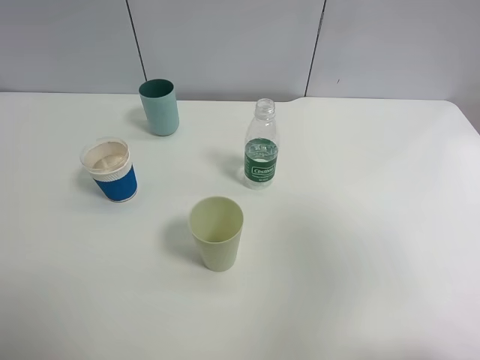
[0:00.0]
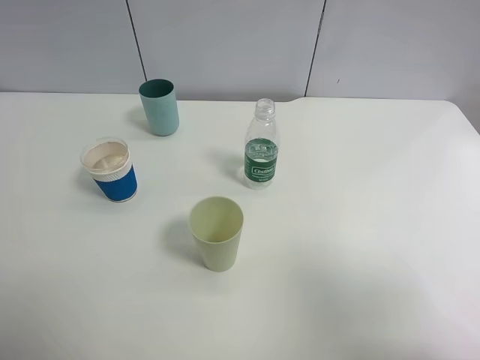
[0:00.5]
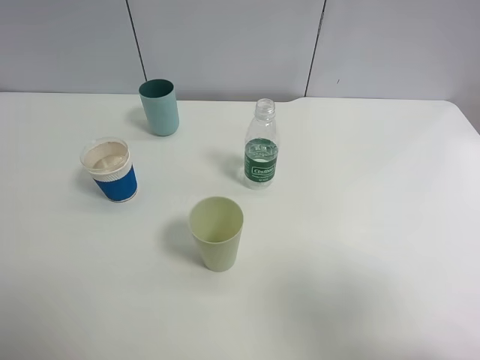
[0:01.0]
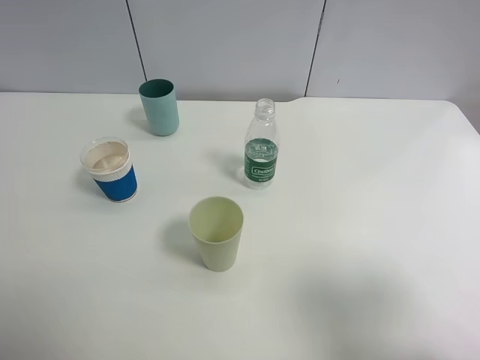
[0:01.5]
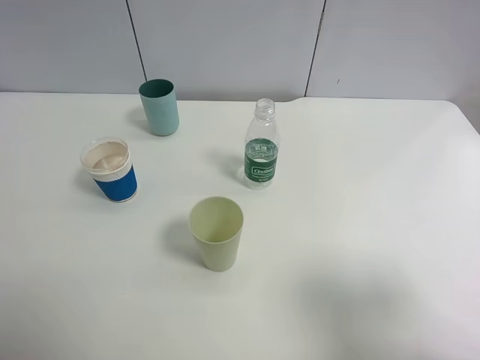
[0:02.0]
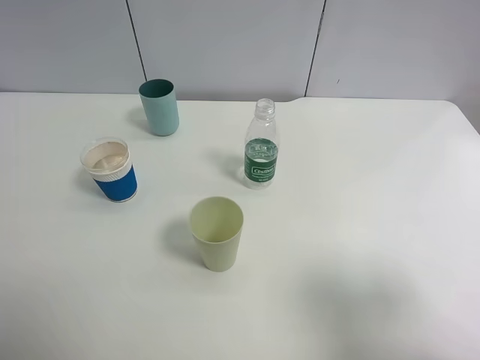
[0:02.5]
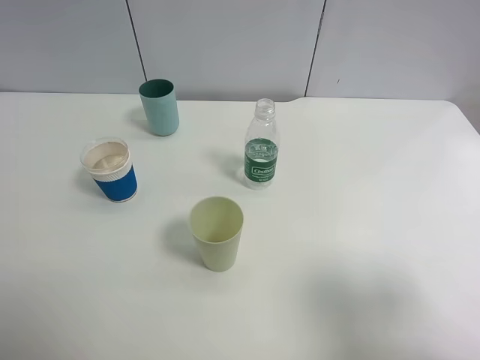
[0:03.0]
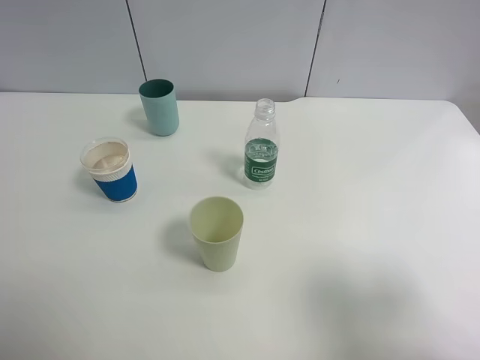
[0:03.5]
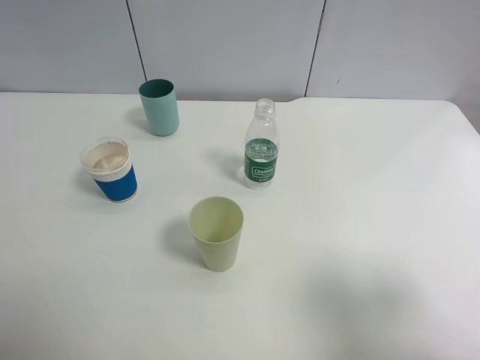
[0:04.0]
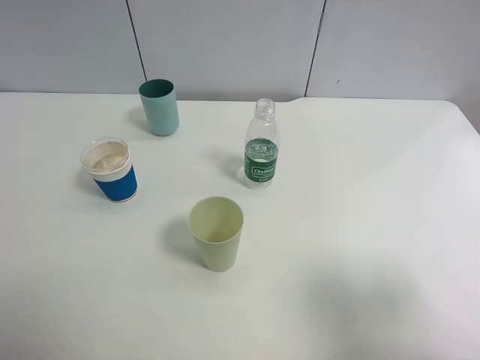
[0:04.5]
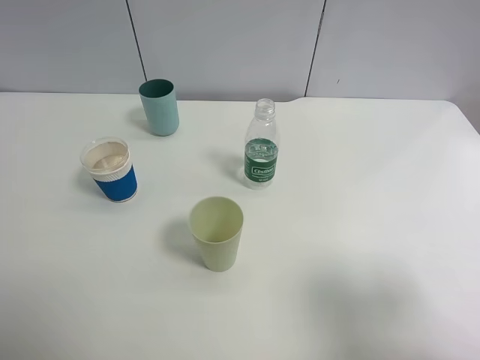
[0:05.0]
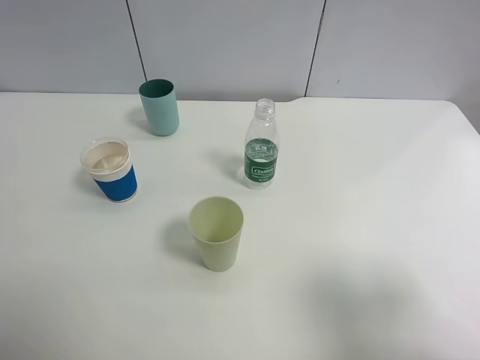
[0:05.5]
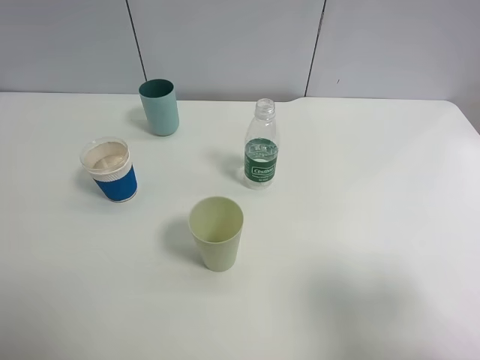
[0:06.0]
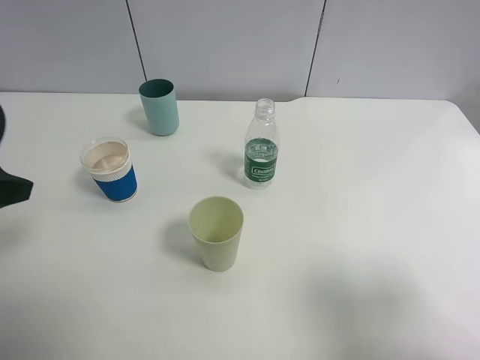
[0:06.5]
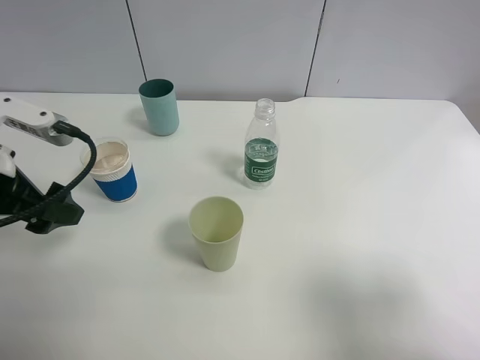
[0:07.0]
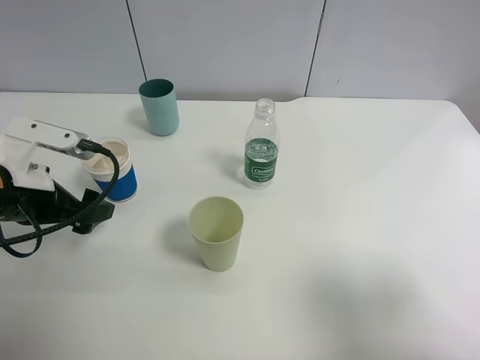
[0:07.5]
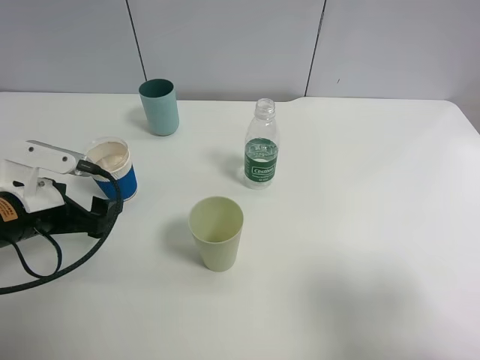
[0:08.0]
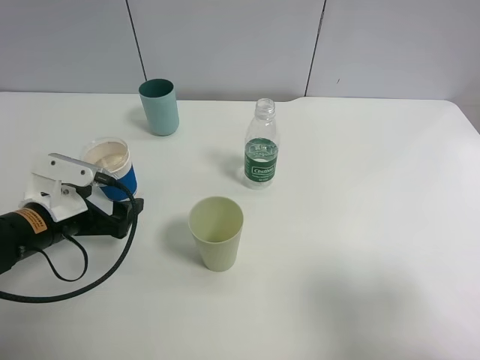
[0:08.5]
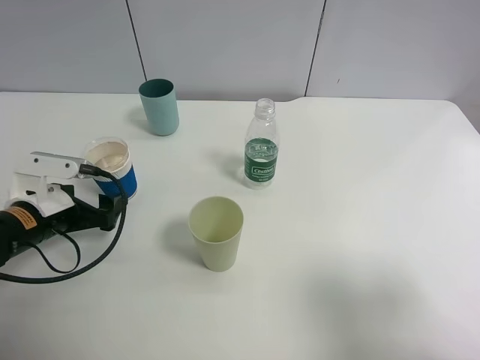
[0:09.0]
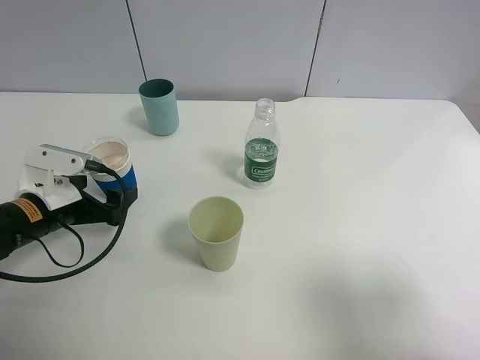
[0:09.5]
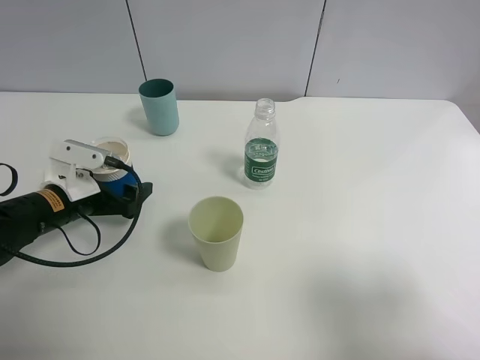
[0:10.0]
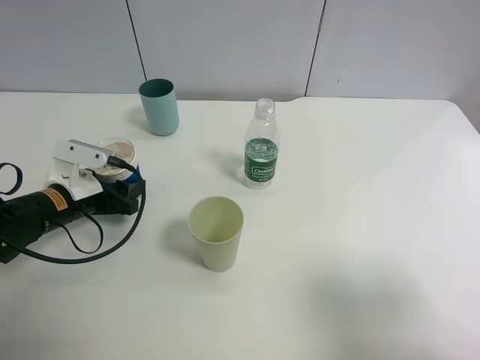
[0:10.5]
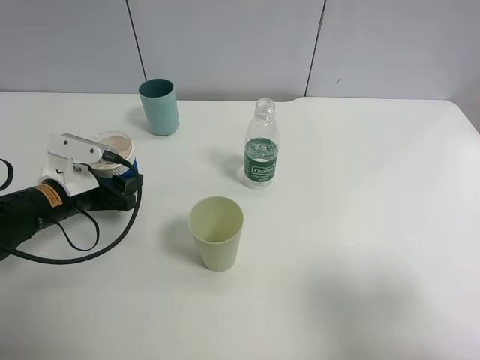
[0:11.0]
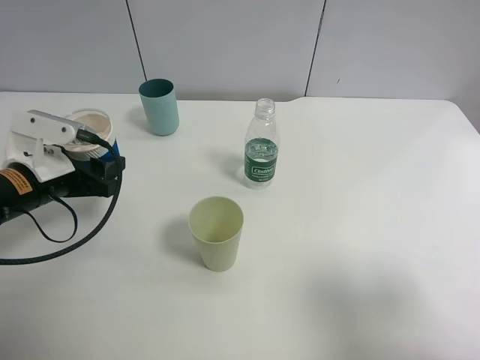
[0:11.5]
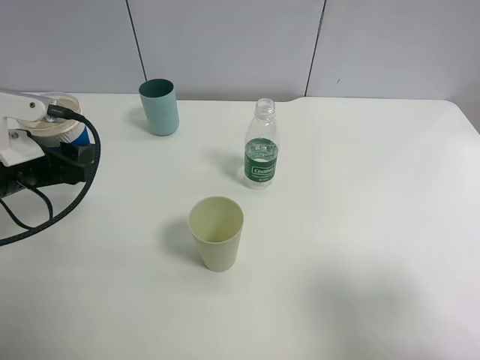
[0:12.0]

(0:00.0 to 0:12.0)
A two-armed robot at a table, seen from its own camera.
Task of the whole recording: use a clamp to hold the bottle of the drink, pour the beverage into a random cup, then clamp the cup containing the drink and pour the drink into another random cup.
Step, 0:00.0 - 0:11.0: Pick up the paper cup with left gripper.
0:00.0 - 0:02.0: The right gripper shifts approximately 10 cm downward.
0:02.0 - 0:04.0: Both grippers stay put.
0:06.0 - 0:08.0: The left gripper is displaced downward and forward by roughly 20 cm.
0:08.0 - 0:10.0: The left gripper is displaced forward by roughly 5 cm.
0:10.0 - 0:12.0: The left gripper goes approximately 10 cm upward, and closes up.

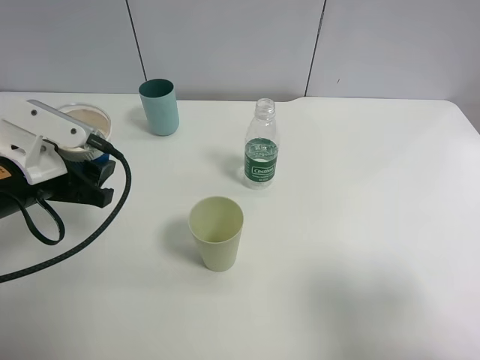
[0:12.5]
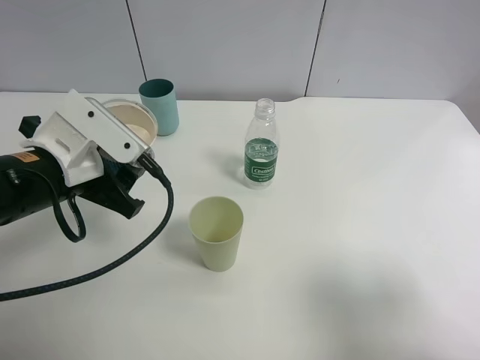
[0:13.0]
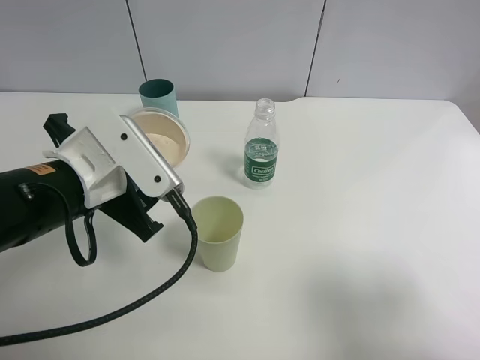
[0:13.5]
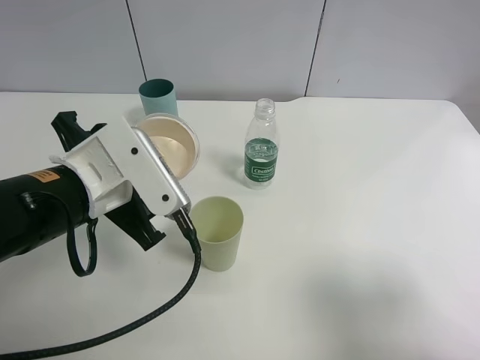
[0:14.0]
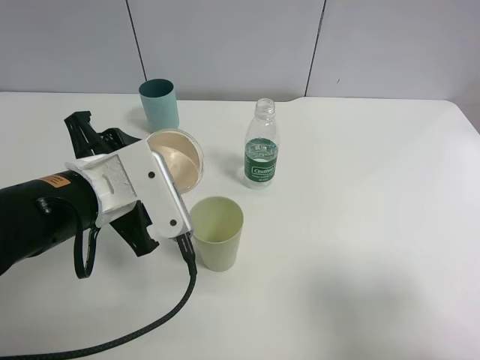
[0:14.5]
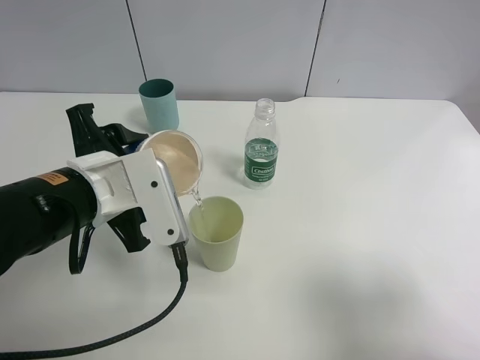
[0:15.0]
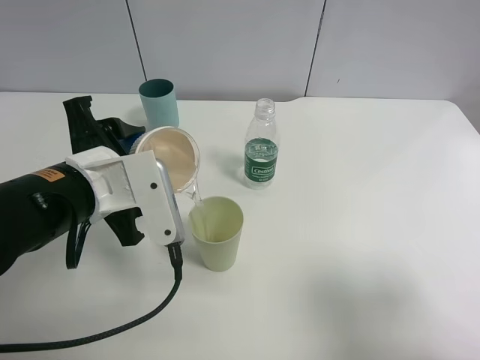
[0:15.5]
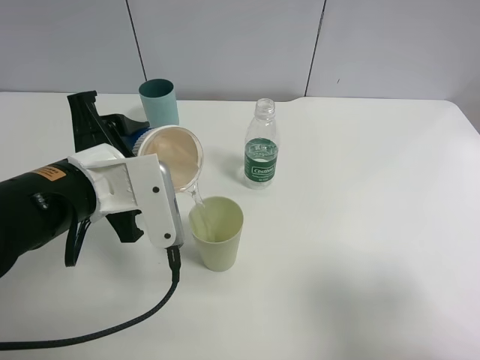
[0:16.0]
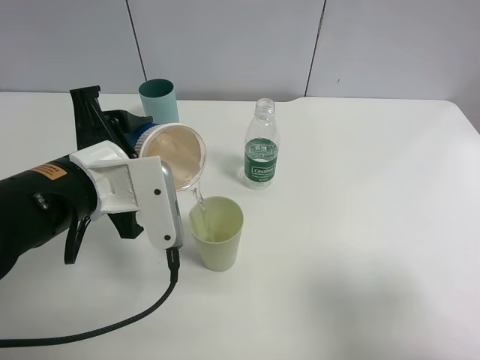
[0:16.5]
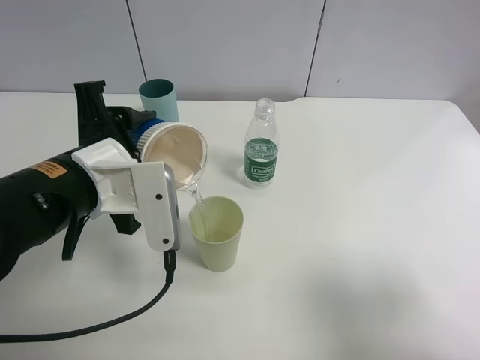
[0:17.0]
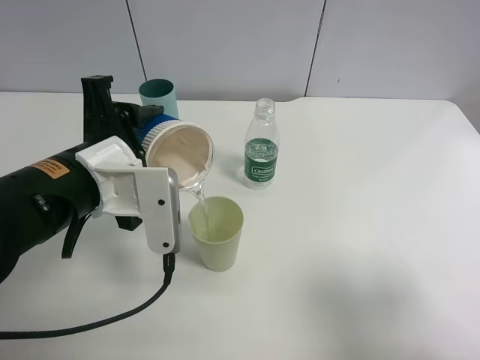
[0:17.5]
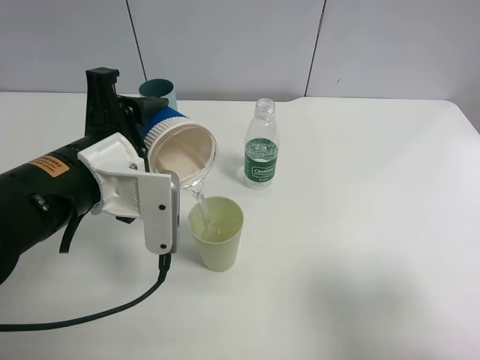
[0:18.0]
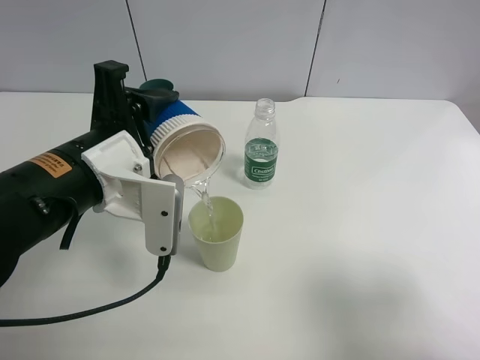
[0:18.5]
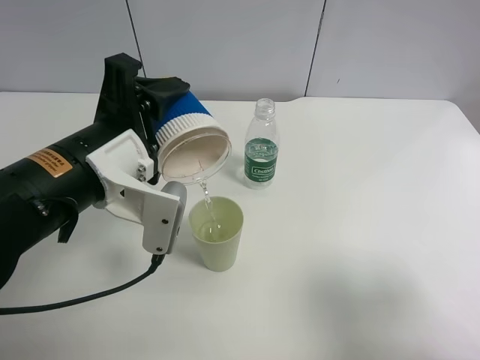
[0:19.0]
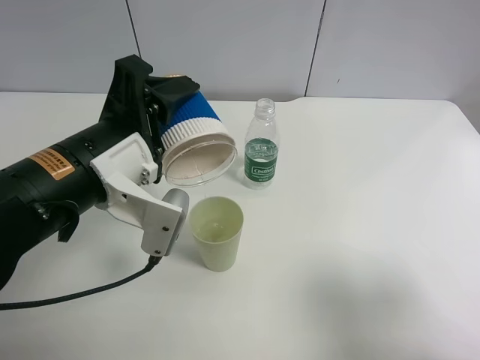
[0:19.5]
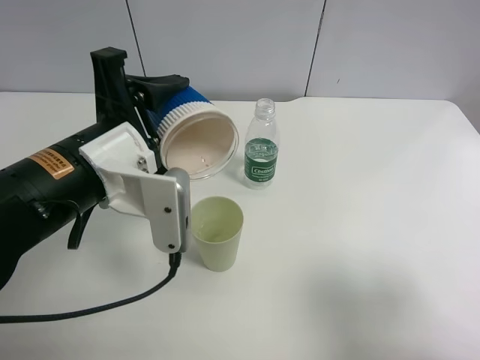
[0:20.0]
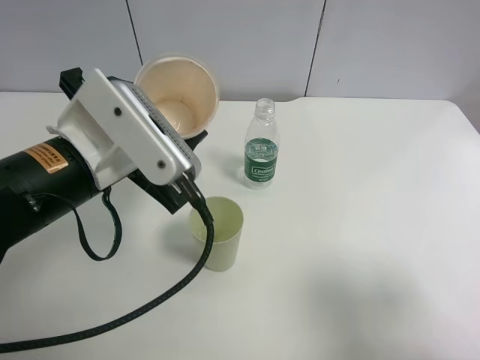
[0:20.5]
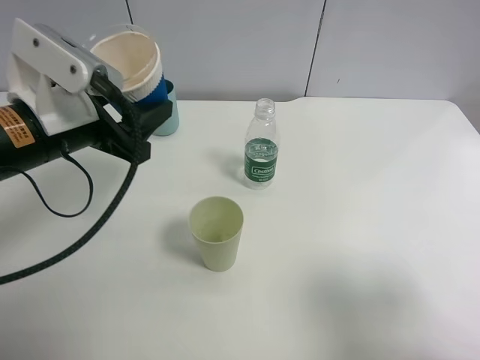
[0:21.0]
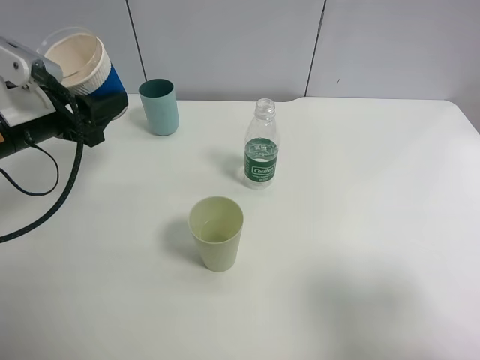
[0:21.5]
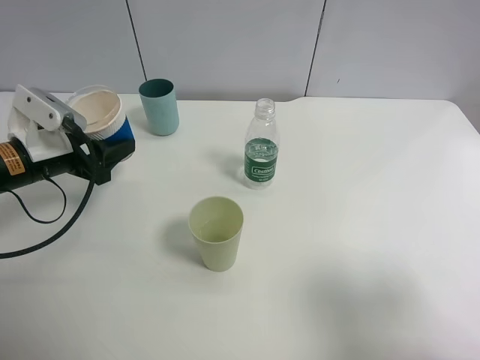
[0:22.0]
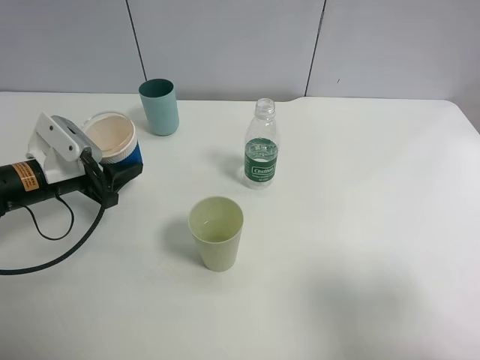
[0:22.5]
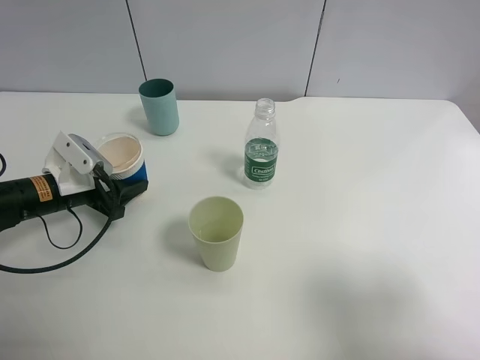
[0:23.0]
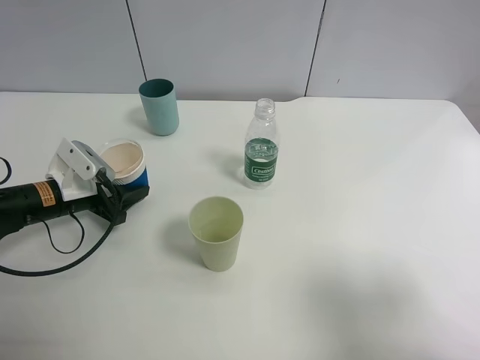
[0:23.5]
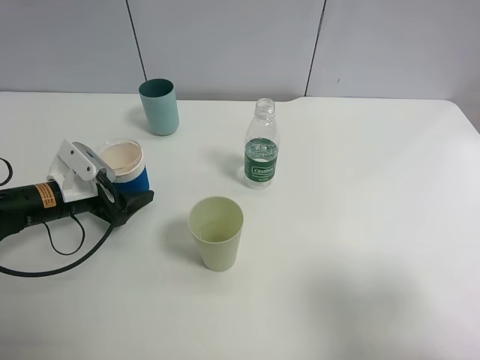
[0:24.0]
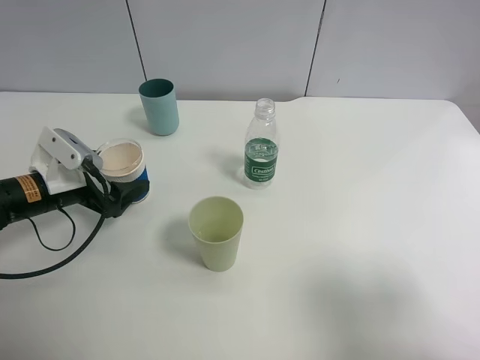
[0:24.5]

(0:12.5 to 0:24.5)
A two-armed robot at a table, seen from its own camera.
Task of the whole recording: use a clamp to hold the bottle of the drink, pour the beverage into a random cup, then clamp the cup containing the drink and pour the drink into another random cup.
Step, 0:12.5 - 0:20.0: Pour water into the green plastic cup with left gripper.
Step, 0:20.5 - 0:24.0: Place the paper cup on the table with left gripper.
0:12.5 - 0:14.5: The left gripper moves to the right, approximately 10 cm.
0:20.5 - 0:22.5: The left gripper travels to the left, downward and forward by about 20 cm.
0:22.5 - 0:24.5: The left gripper opens up.

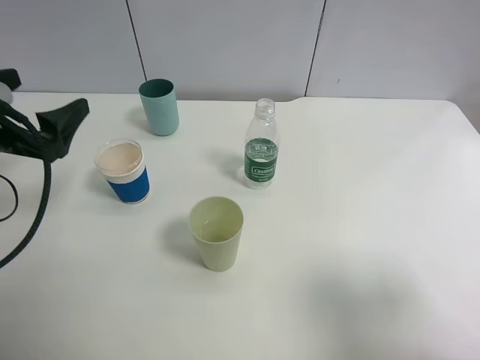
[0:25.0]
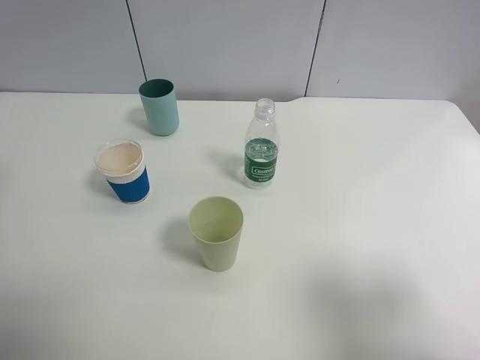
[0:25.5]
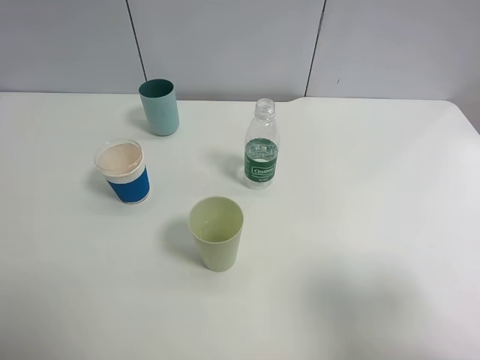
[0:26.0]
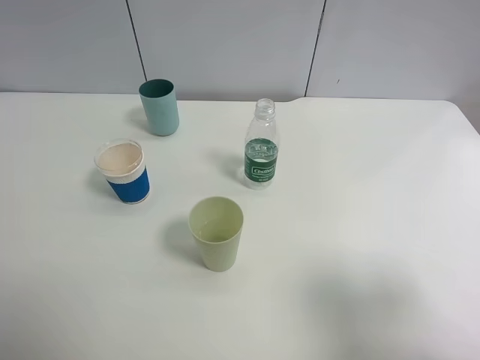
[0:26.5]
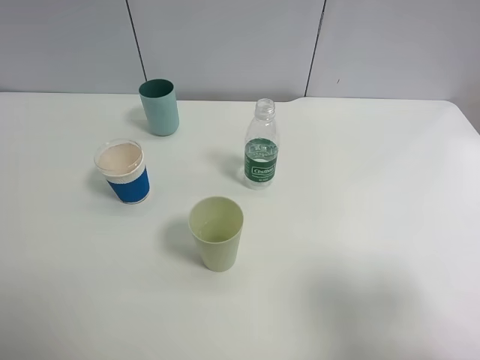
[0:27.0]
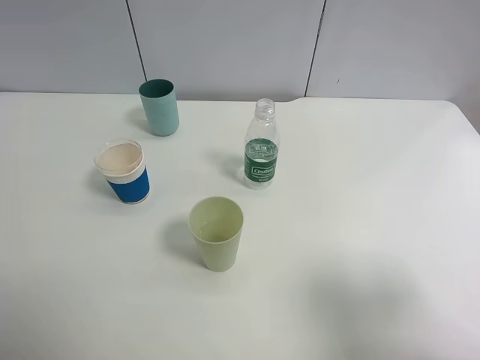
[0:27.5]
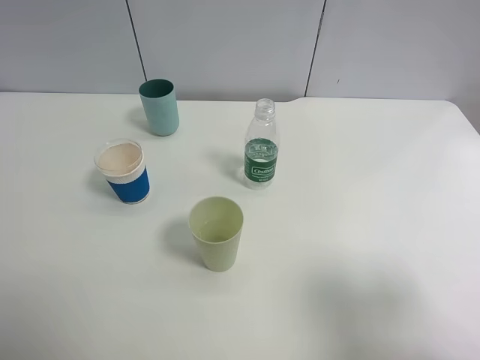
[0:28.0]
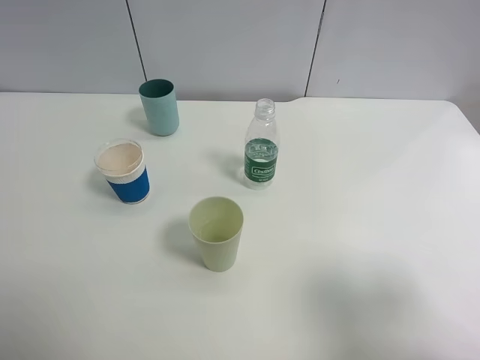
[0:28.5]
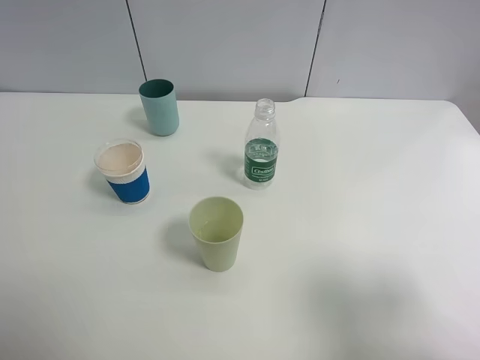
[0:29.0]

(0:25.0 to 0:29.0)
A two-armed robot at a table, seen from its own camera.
Task of the whole recording: use a clamp to hold the bottle of the drink, pour the beverage into a random cup, then clamp the cup containing the drink and pour the drink into another random cup.
0:25.0 - 0:27.0: The left gripper travels backward by about 20 cm.
